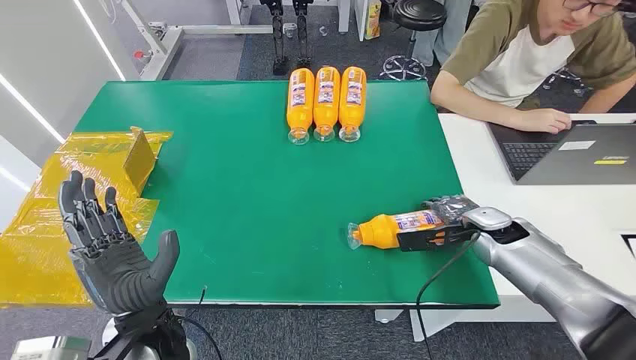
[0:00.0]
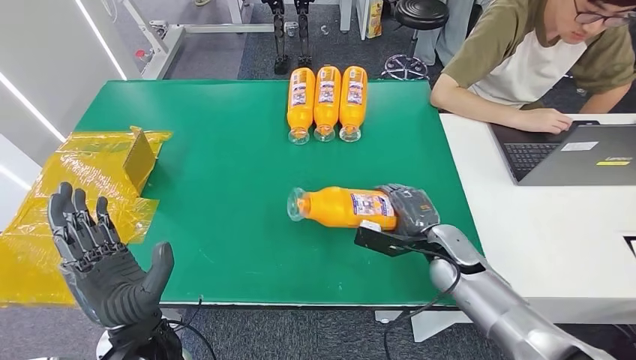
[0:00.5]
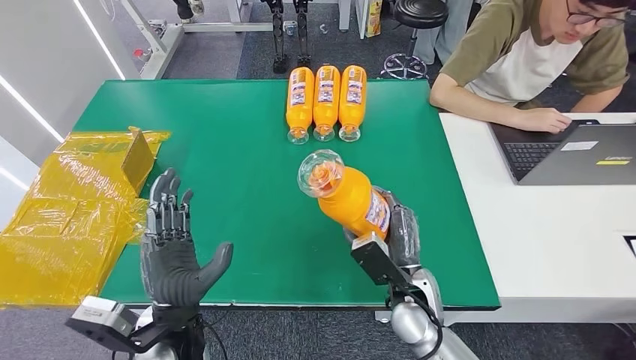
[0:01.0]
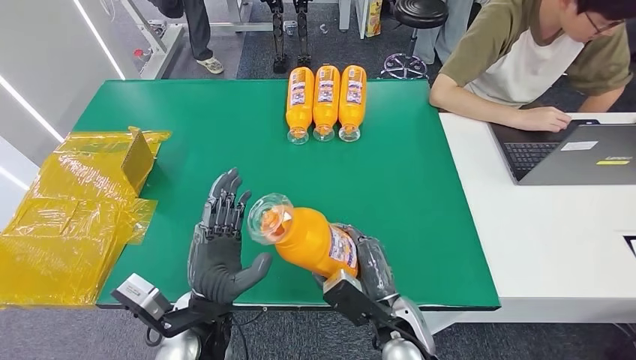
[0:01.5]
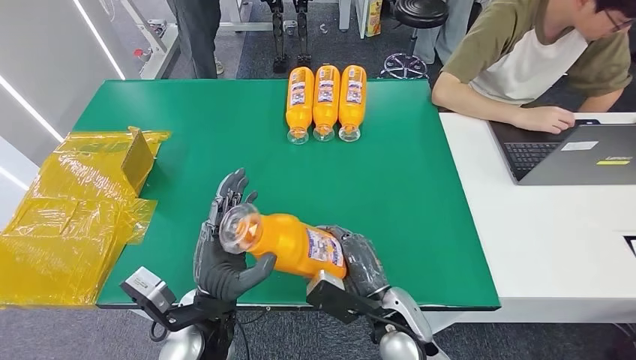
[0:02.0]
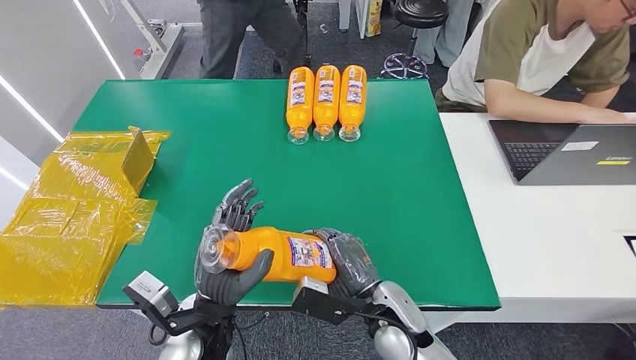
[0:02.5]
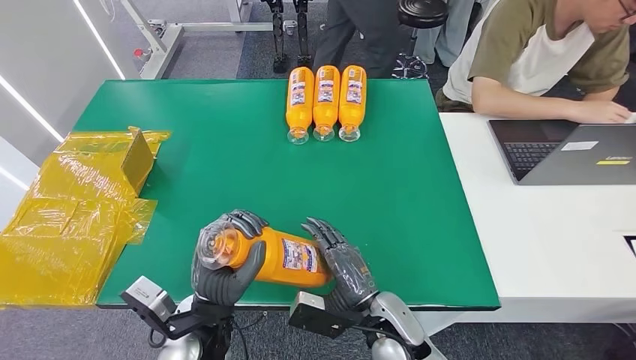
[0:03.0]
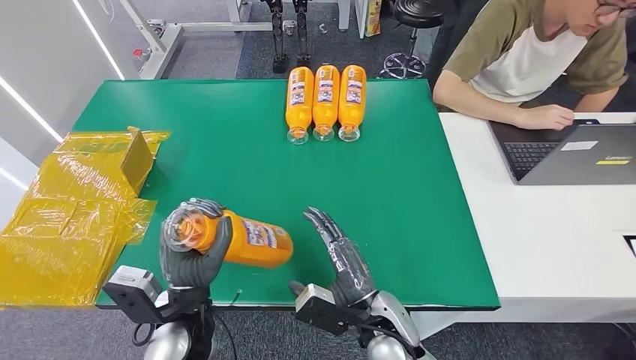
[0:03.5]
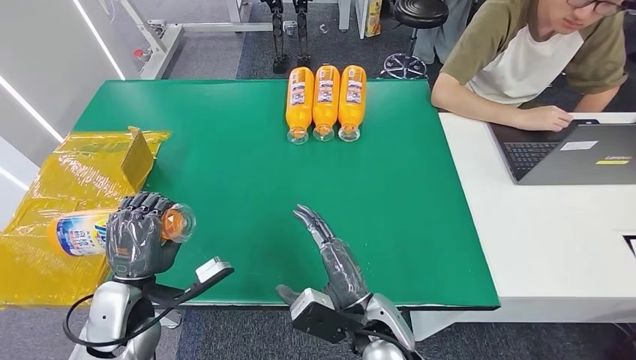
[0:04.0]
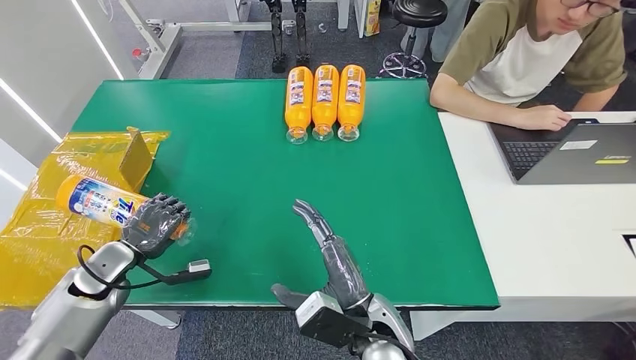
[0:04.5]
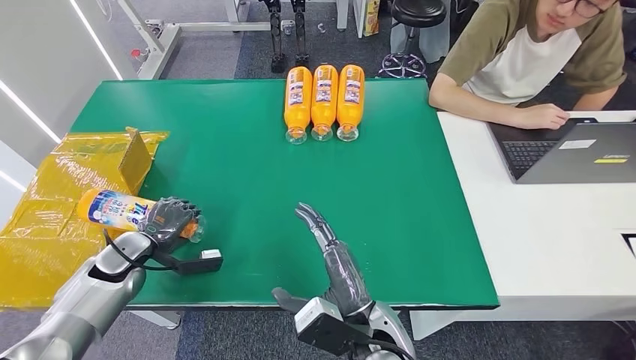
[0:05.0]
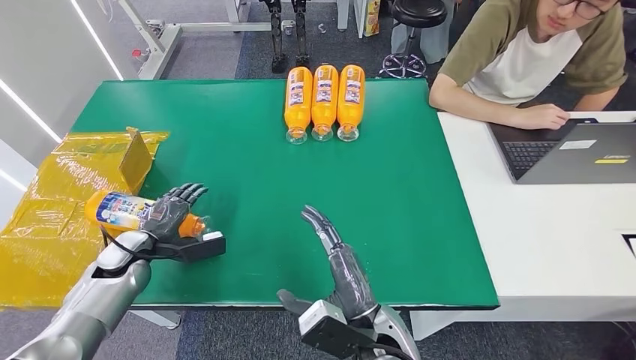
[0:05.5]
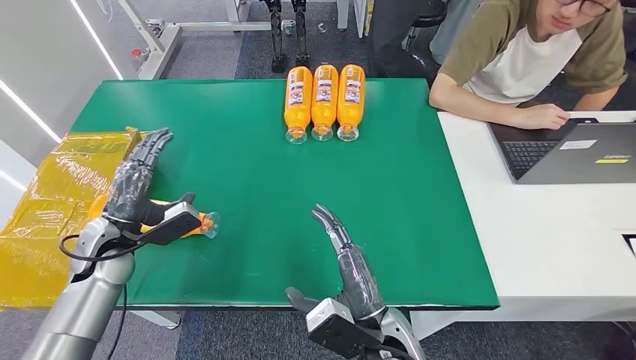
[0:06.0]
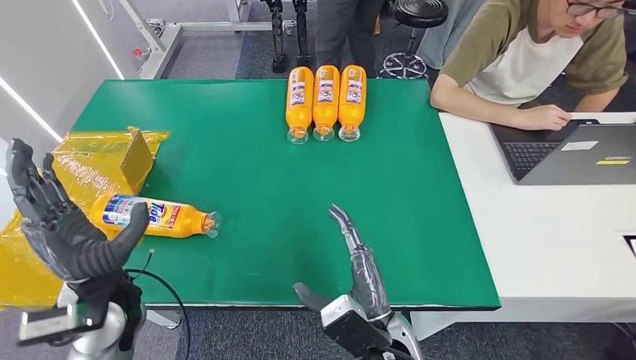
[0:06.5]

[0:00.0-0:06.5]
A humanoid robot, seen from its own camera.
Step, 0:00.0 to 0:01.5: Pick up the bottle from the table.
Step, 0:02.0 to 0:06.5: Turn the bottle to the front side.
0:04.5 to 0:06.5: The left hand is displaced to the right and upward by roughly 15 cm.

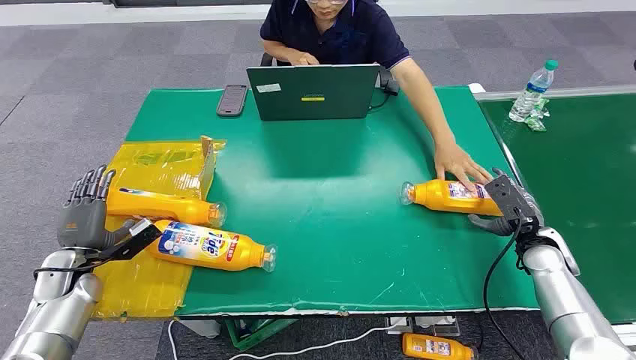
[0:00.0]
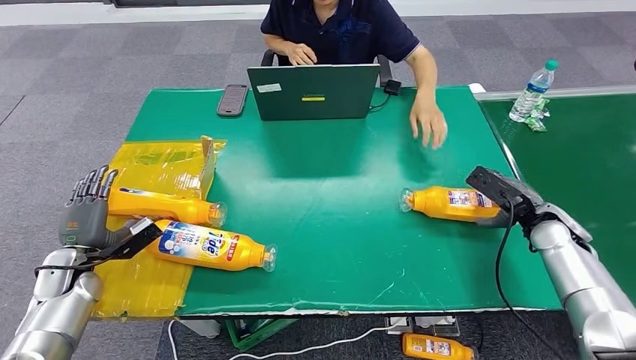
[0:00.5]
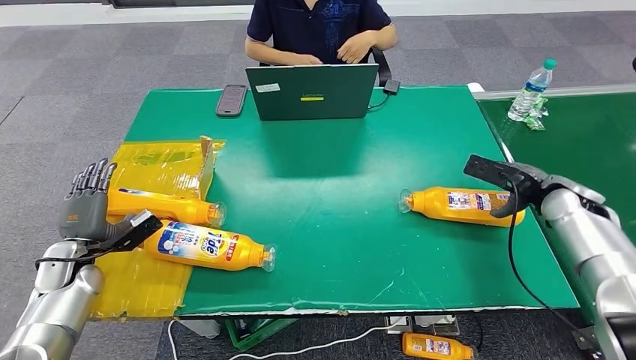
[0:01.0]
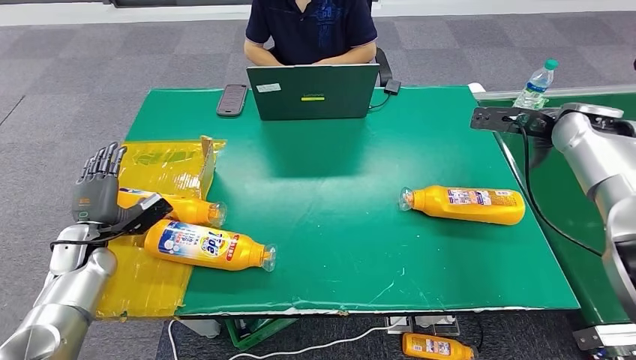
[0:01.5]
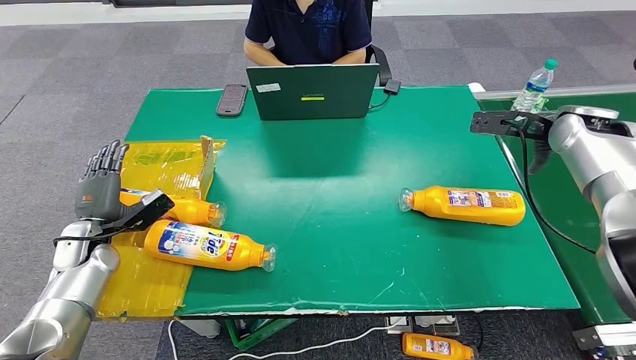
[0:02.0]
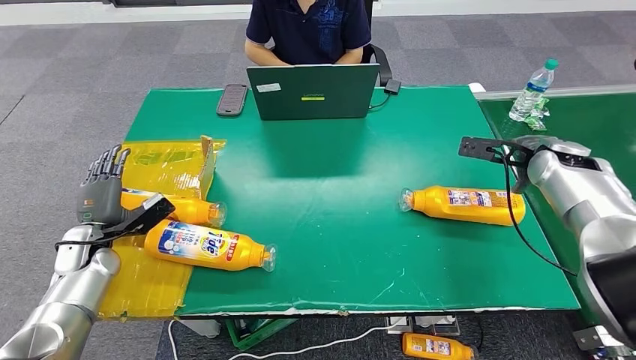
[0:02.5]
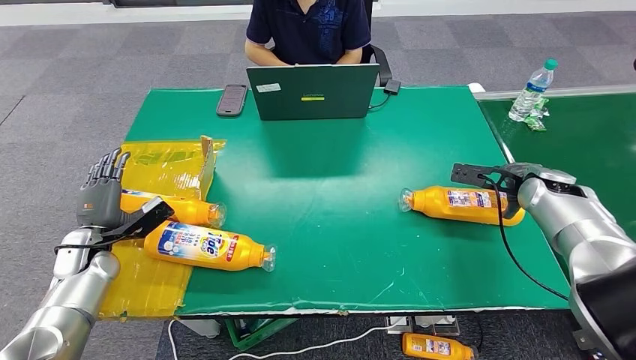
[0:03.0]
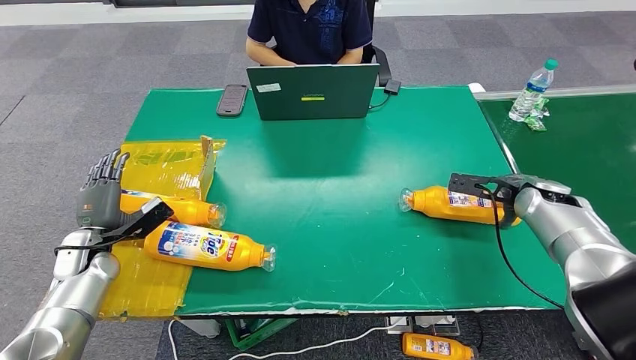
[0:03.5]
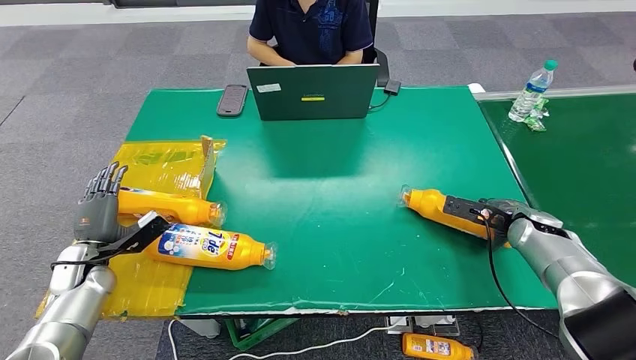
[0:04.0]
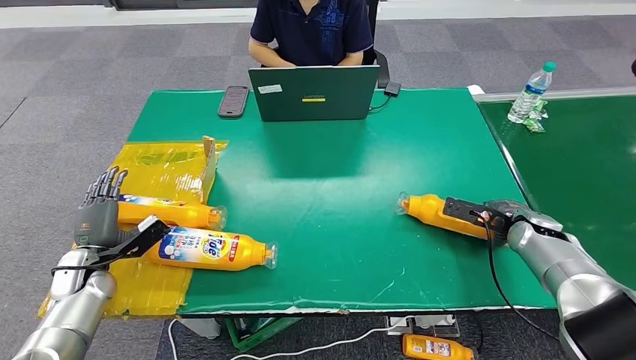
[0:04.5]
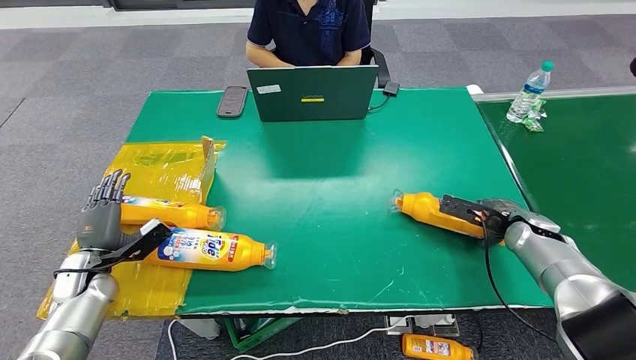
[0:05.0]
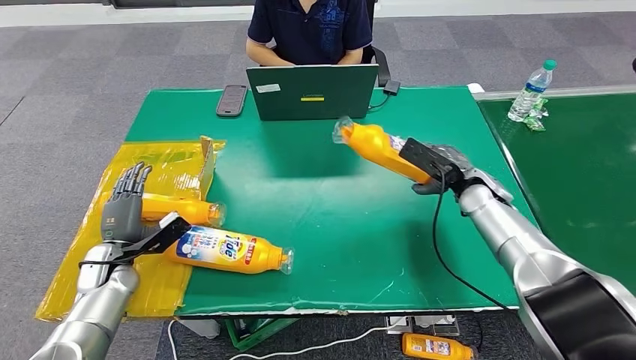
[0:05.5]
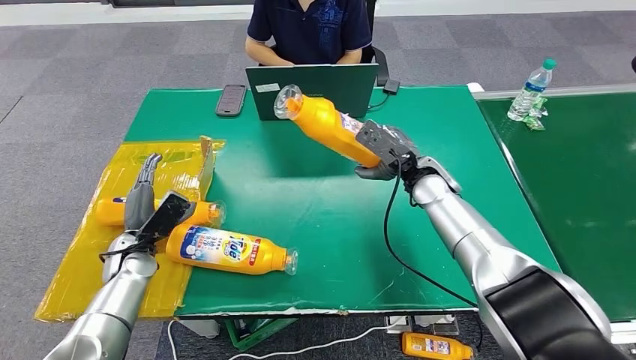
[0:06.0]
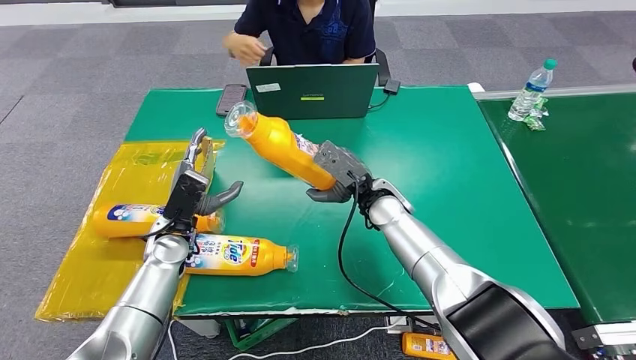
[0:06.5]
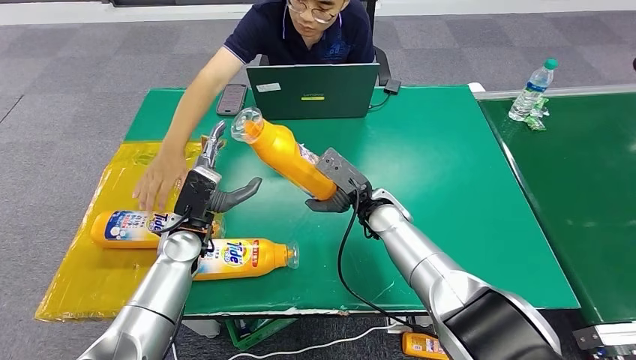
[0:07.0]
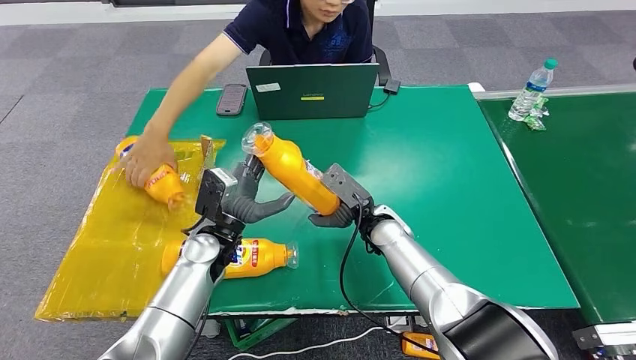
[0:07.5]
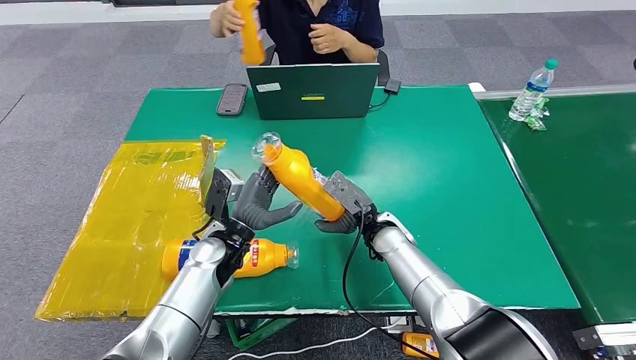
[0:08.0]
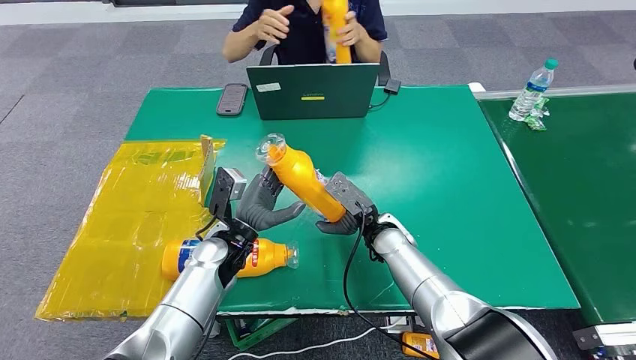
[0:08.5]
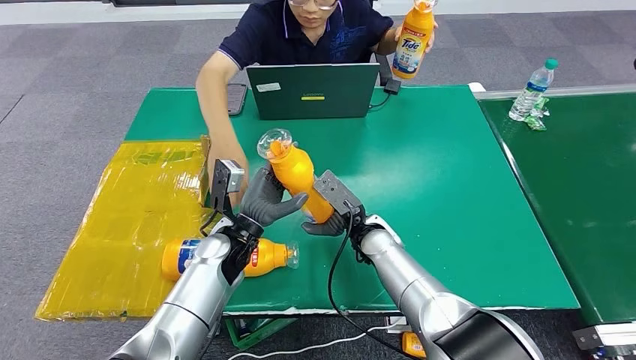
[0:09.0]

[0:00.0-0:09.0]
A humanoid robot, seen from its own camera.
Step, 0:00.0 to 0:06.0: Pick up the bottle from the table.

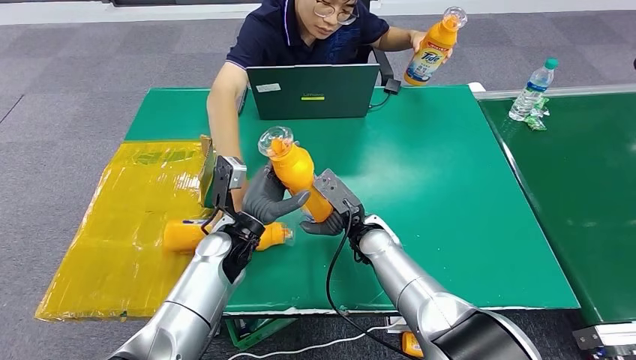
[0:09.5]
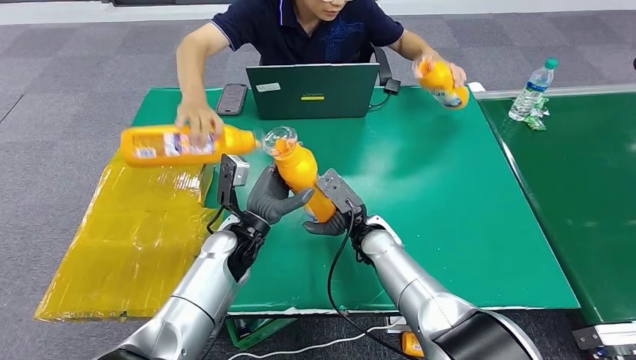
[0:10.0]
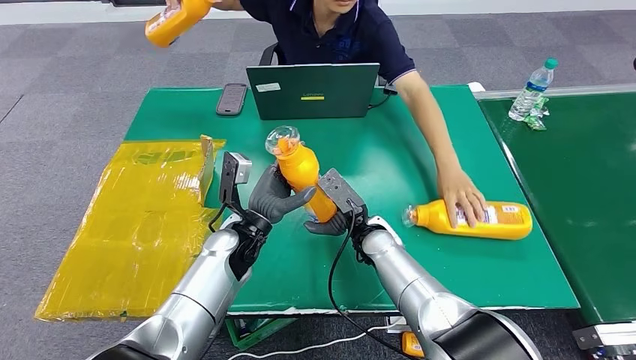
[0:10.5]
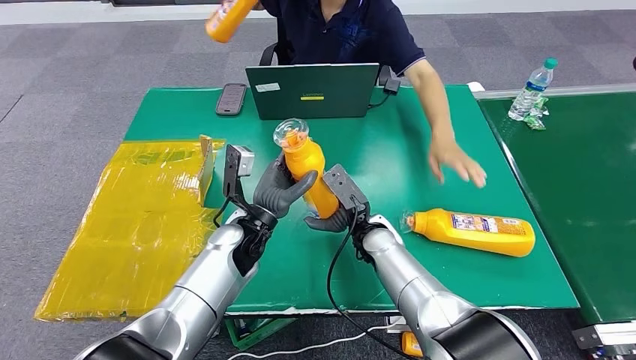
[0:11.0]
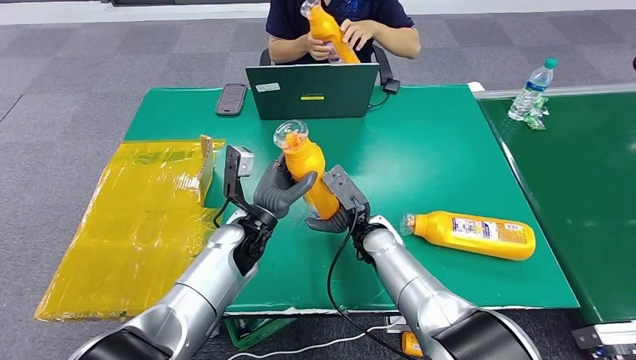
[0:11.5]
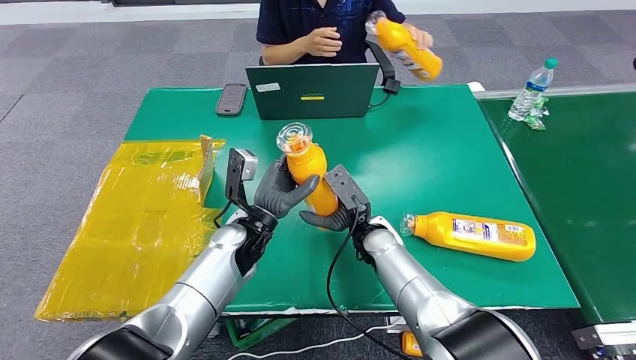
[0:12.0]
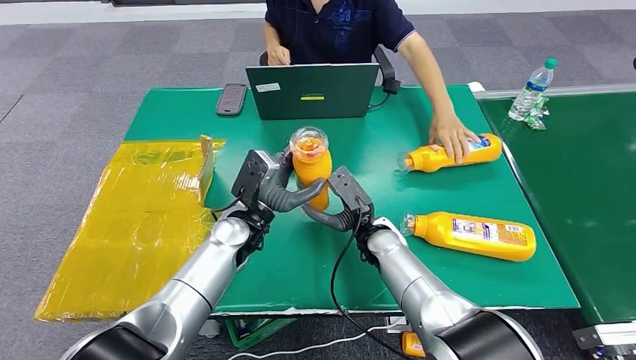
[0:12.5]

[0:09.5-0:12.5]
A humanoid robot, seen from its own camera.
Step, 0:09.5 to 0:12.5: Turn the bottle to the front side.
0:09.5 to 0:11.0: There are only small adjustments of the hands.

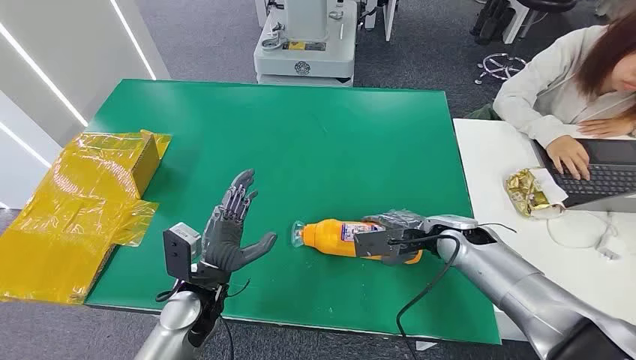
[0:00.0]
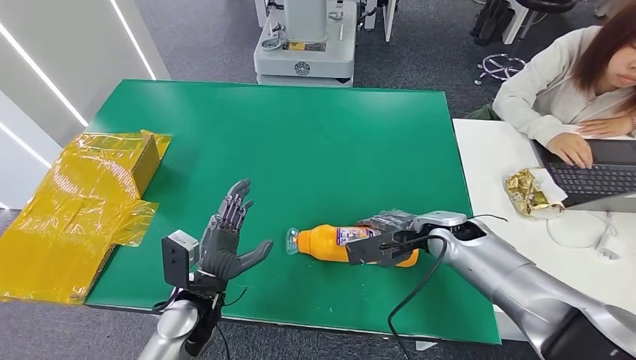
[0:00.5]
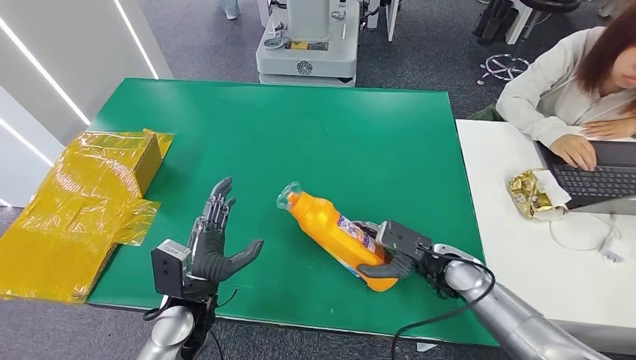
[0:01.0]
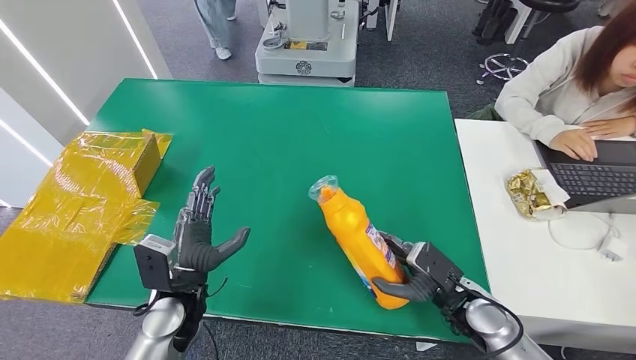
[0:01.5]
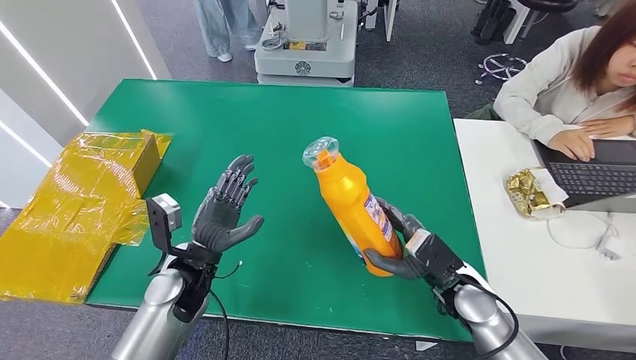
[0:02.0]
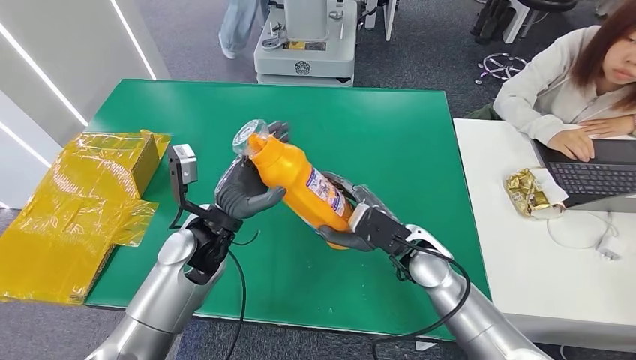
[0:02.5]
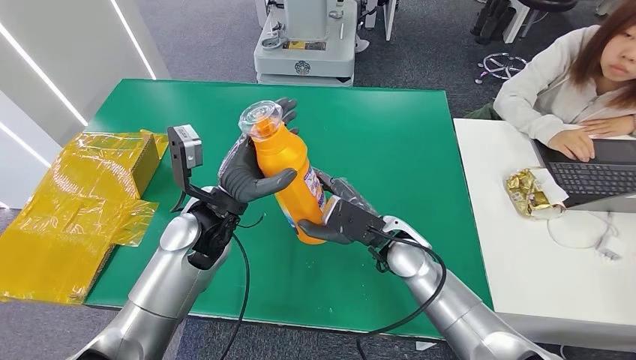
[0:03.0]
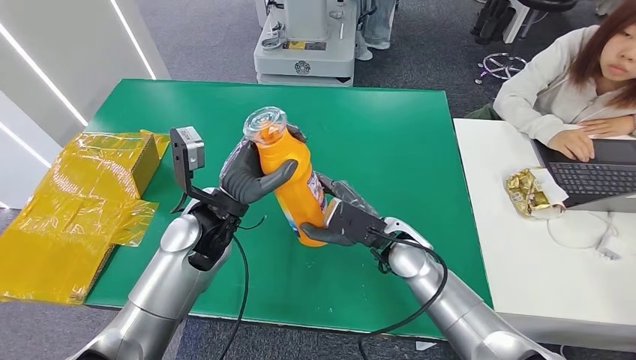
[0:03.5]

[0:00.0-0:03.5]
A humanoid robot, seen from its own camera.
Step, 0:00.0 to 0:03.0: Pick up the bottle from the table.
0:02.0 to 0:03.5: The left hand heads upward and forward, covering approximately 10 cm. Meanwhile the right hand travels to the left and forward by approximately 15 cm.
